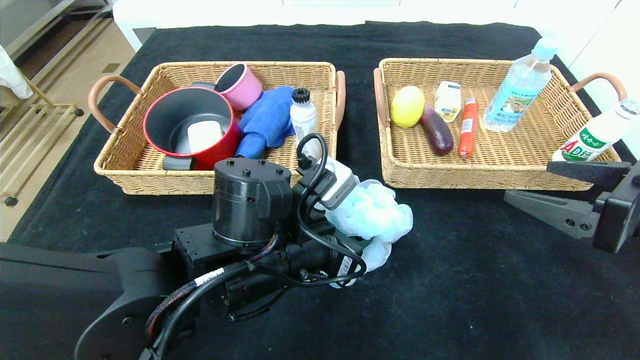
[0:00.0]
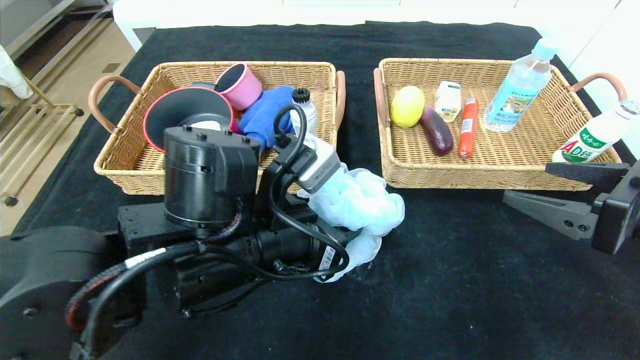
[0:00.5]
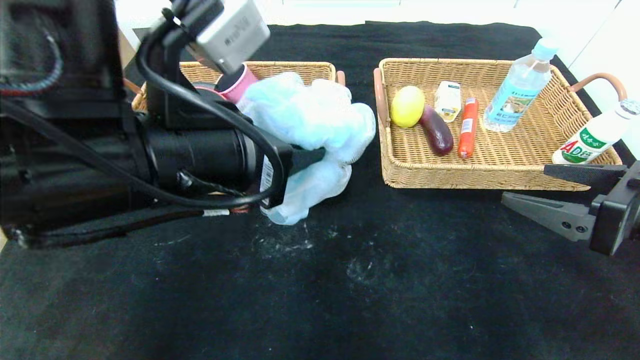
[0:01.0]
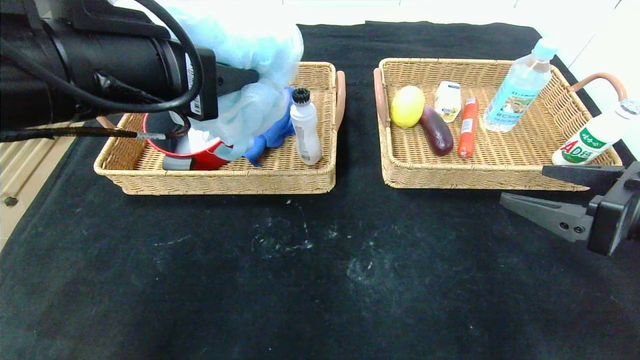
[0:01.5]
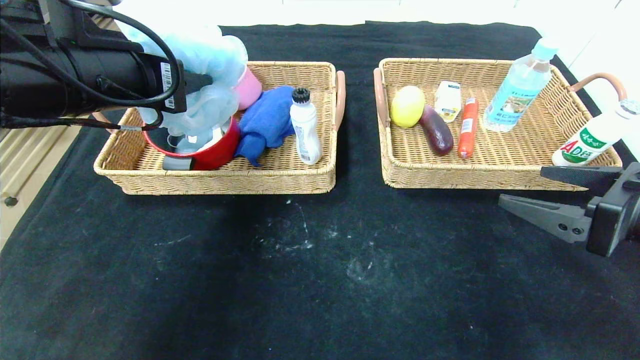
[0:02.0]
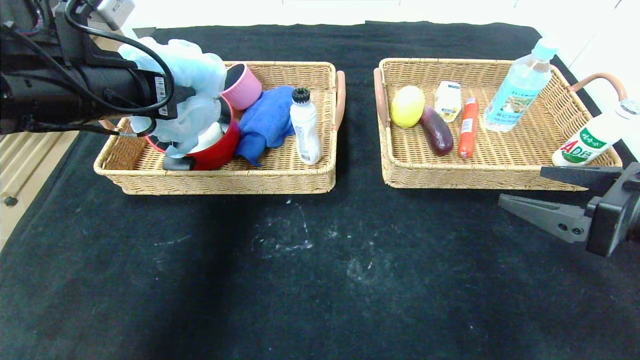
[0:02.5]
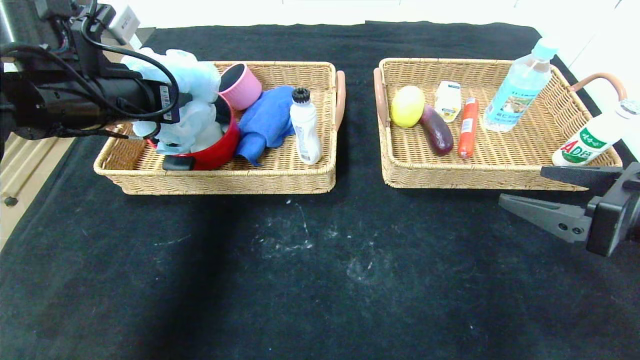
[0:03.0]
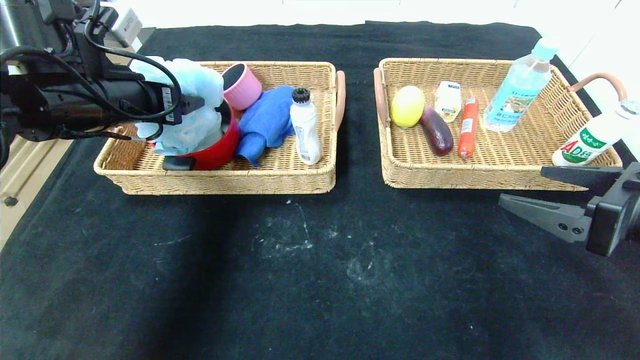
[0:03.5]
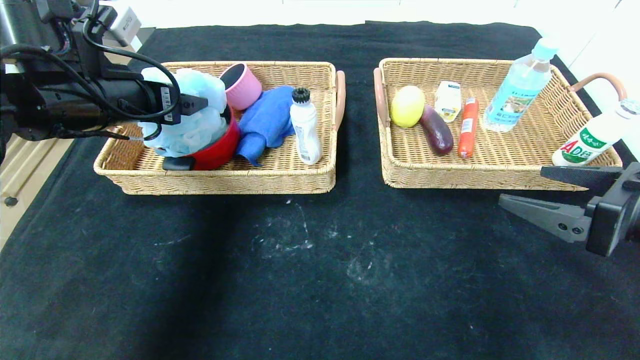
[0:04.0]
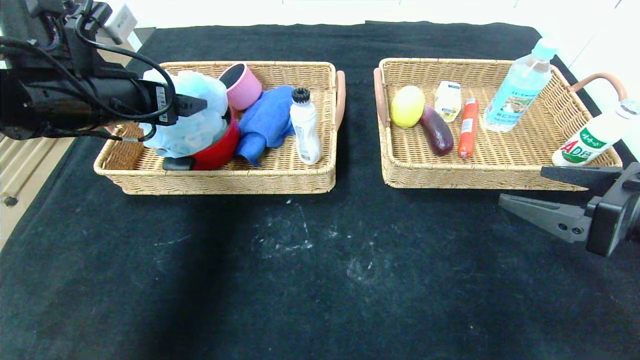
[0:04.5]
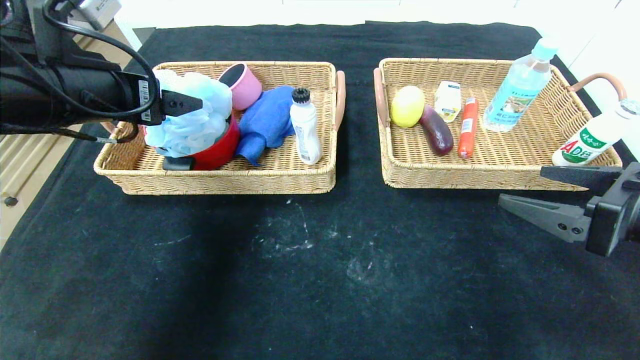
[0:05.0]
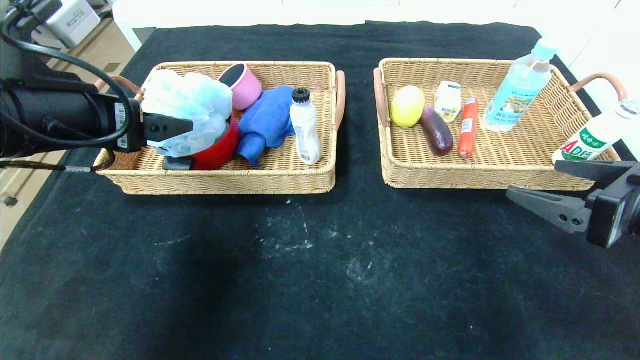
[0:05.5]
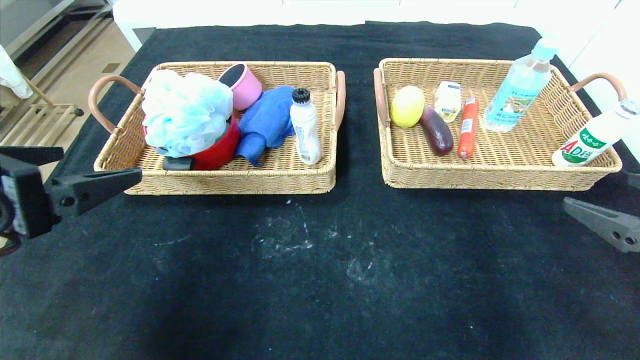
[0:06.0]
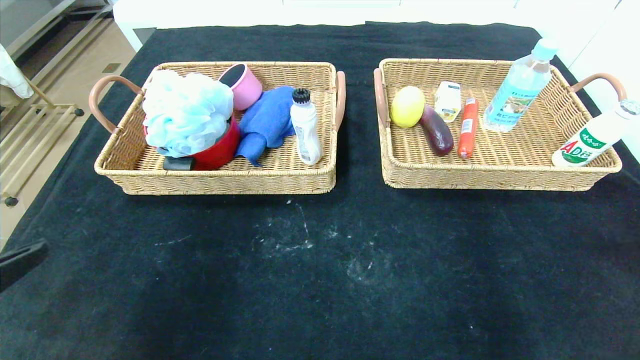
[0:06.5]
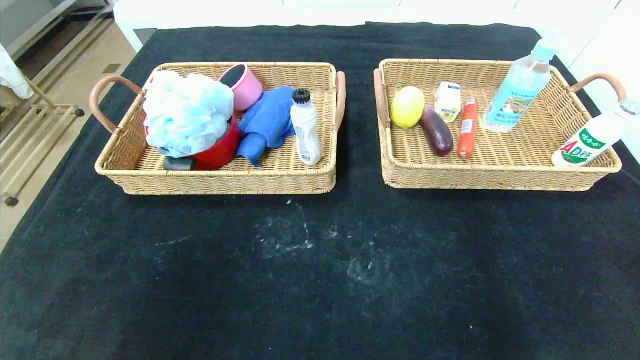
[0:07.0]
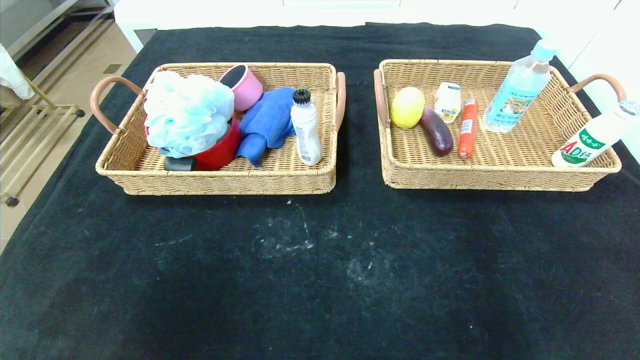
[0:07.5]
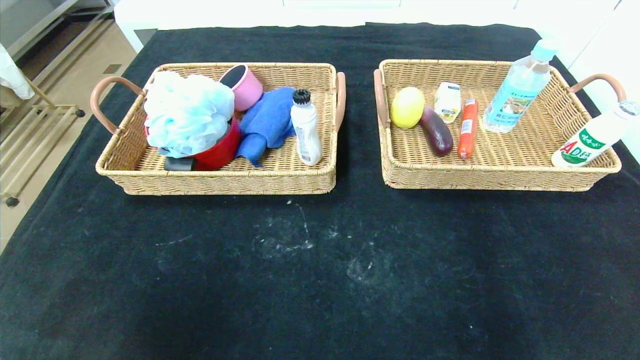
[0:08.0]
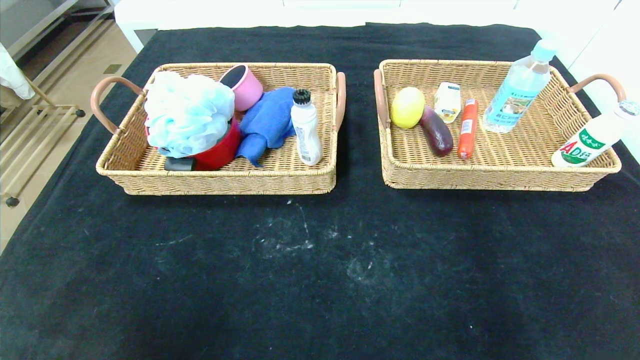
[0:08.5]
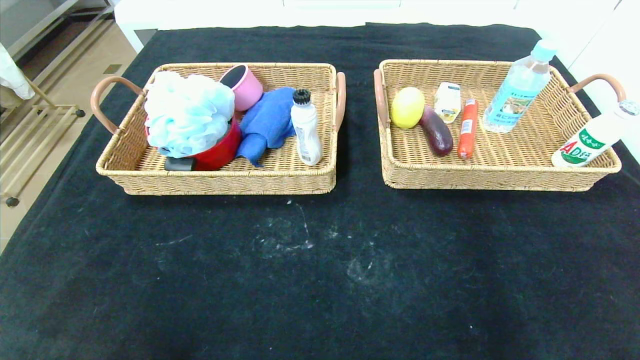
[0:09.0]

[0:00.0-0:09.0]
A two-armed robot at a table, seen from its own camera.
Step, 0:00.0 to 0:05.0: Grasp the bath ball and put it in the left basket.
0:00.0 to 0:02.0: The left gripper shifts approximately 20 cm upward and to the left.
0:02.0 to 0:04.5: The left gripper moves some 5 cm, and opens its fingers.
0:04.5 to 0:07.0: Both grippers travel together backward, about 30 cm.
0:07.0 to 0:09.0: The left gripper moves downward, roughly 15 cm.
